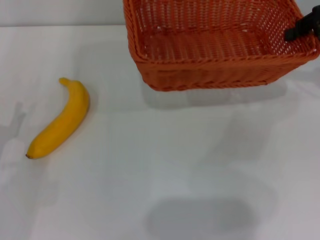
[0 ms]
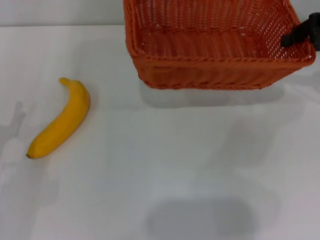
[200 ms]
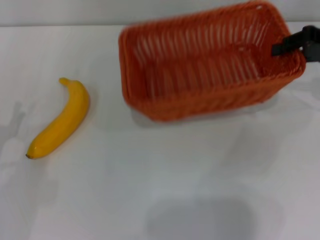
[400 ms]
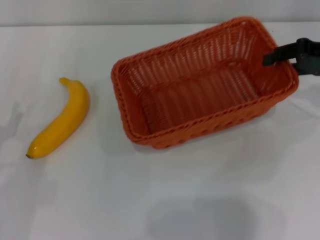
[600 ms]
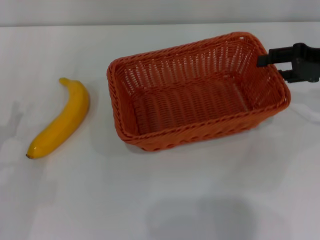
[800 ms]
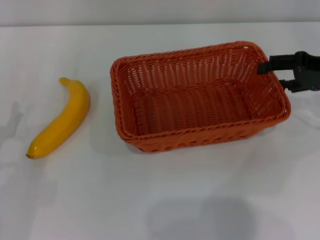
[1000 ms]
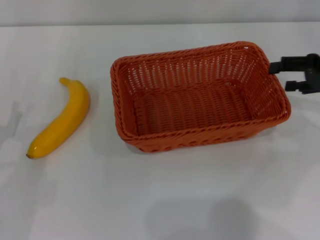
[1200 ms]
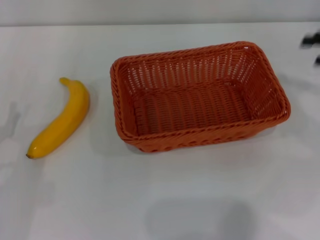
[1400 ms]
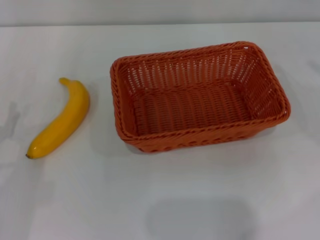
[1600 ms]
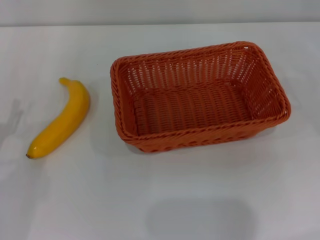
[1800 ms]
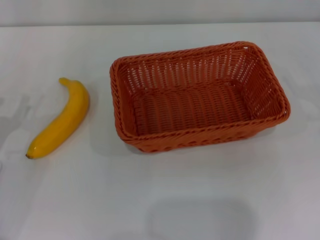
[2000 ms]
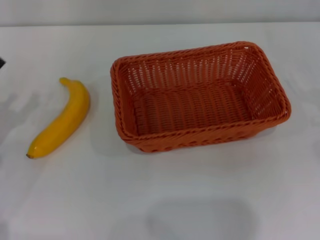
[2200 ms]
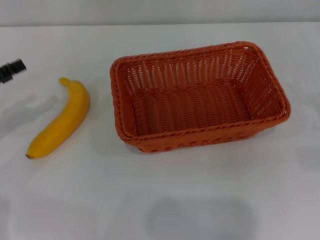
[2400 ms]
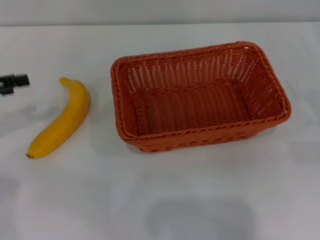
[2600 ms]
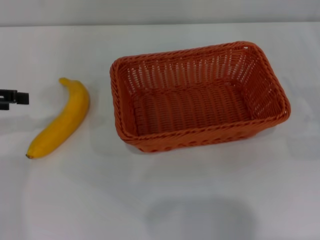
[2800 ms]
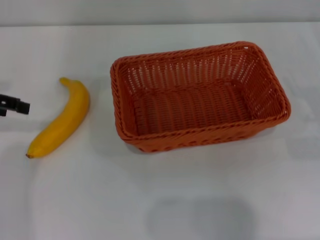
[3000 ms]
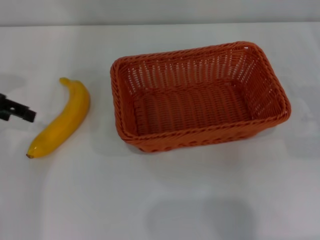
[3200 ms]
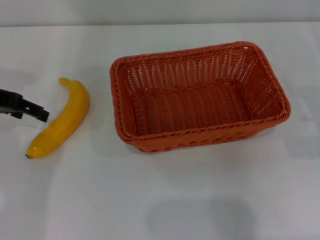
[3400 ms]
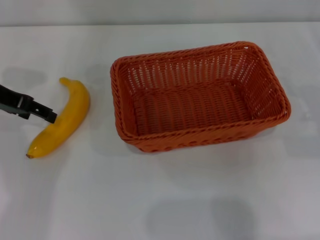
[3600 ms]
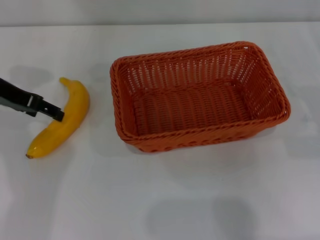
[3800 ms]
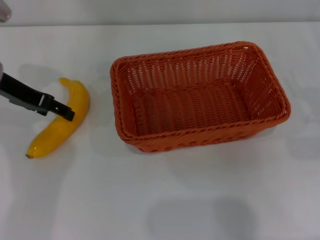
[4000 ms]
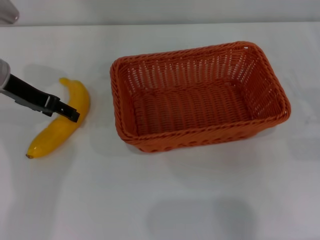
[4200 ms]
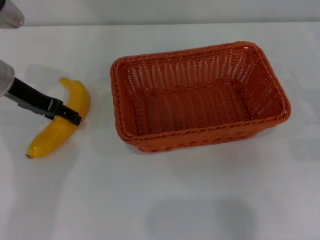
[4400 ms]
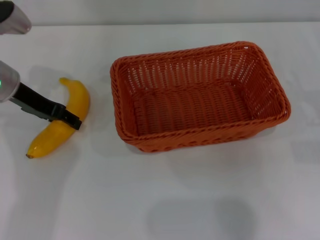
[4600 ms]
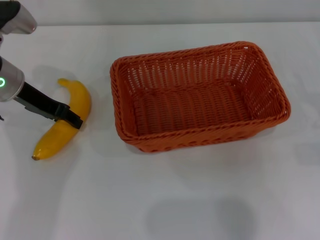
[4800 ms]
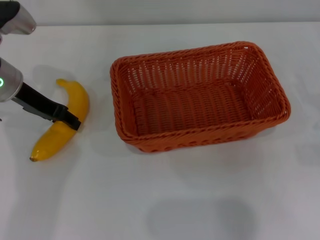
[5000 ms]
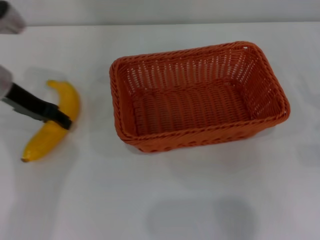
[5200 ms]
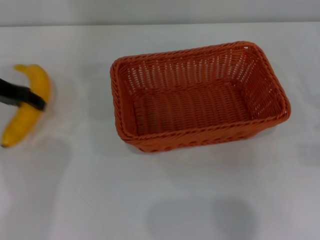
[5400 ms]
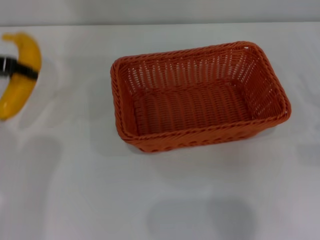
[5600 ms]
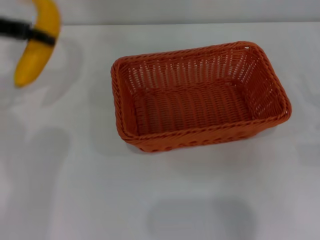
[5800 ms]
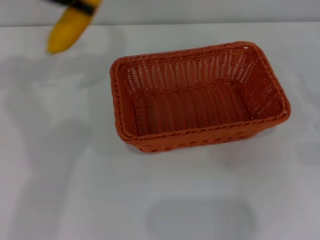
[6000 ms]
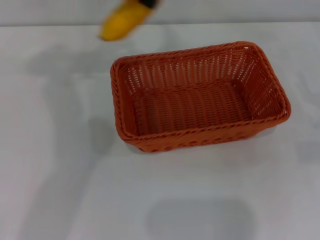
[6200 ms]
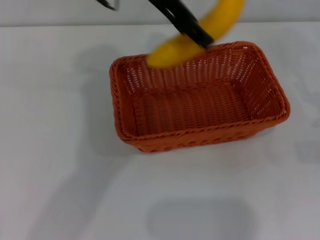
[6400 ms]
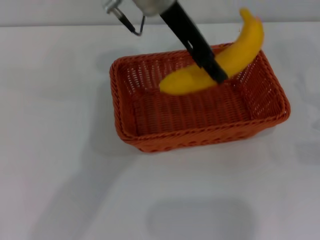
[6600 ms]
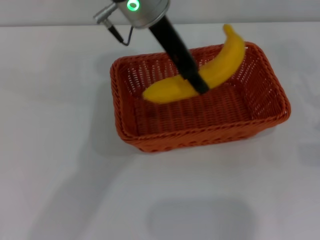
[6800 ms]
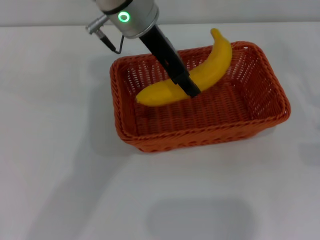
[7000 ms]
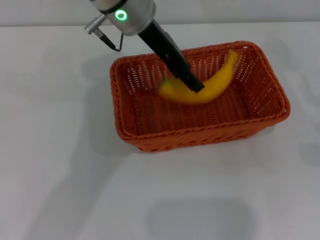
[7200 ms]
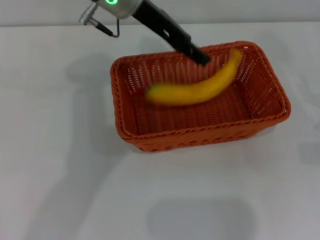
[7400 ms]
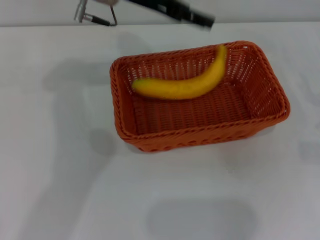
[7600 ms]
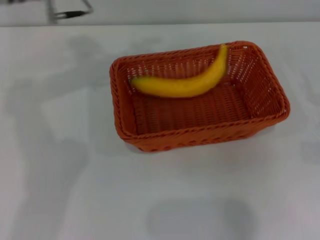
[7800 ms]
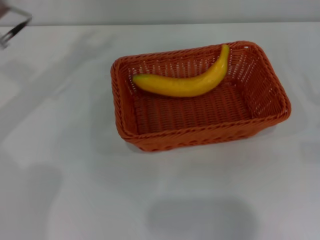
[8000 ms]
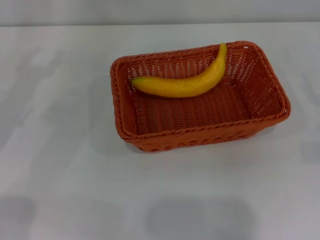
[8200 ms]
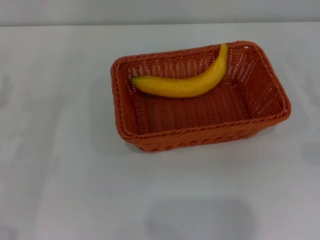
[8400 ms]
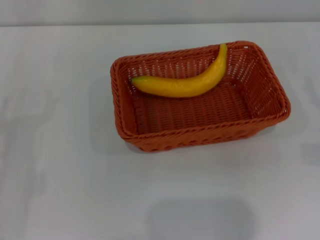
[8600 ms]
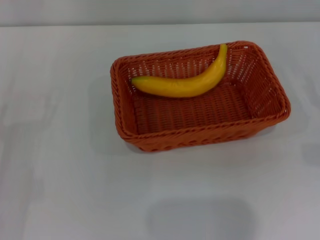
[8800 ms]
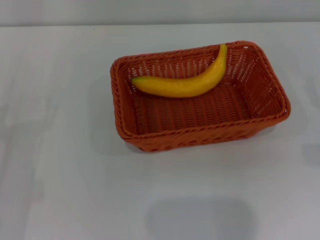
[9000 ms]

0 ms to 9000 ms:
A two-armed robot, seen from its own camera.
Step, 1200 ms to 5200 ms: Pick up the banana with the left gripper.
Step, 5400 ms to 7000 ms: Place the banana into the light basket with the left gripper.
0 ms to 1600 ms: The right gripper goes some 15 cm to the right, backward and downward, and opens its fingers.
1600 ms to 3000 ms: The left gripper heads upward and forward, covering about 20 cm.
3000 ms to 4400 ms: The left gripper heads to the right, covering roughly 10 cm.
4400 ms to 6000 ms: The left gripper moves upward, approximately 15 cm, and closes.
6000 ms to 7600 ms: The left gripper shifts about 15 cm to the right, and opens.
7600 ms to 9000 ms: The left gripper heads to the left, backward and downward, covering approximately 35 cm.

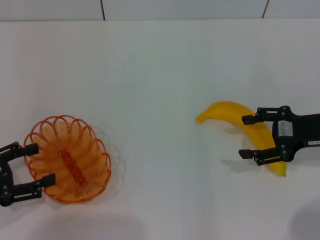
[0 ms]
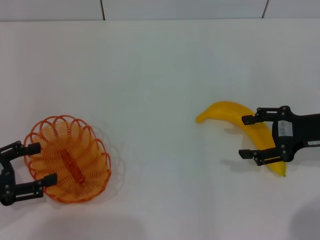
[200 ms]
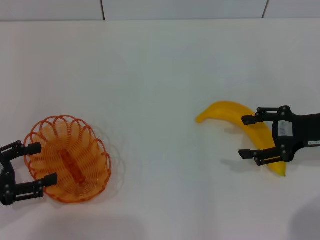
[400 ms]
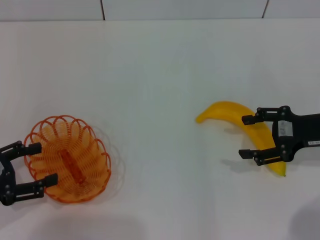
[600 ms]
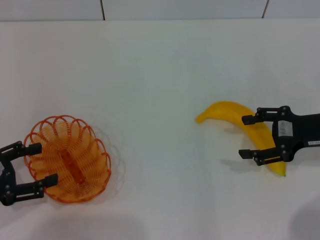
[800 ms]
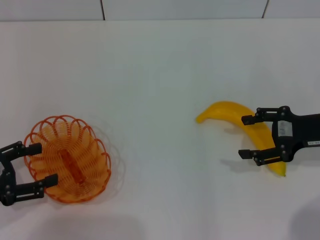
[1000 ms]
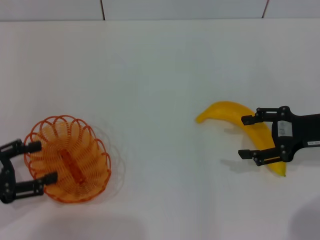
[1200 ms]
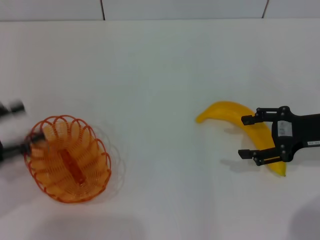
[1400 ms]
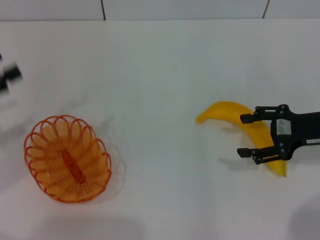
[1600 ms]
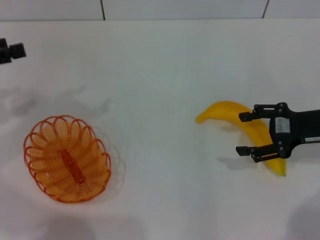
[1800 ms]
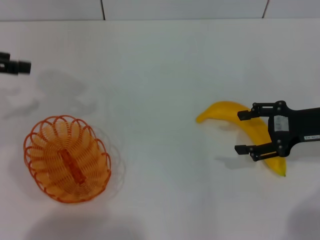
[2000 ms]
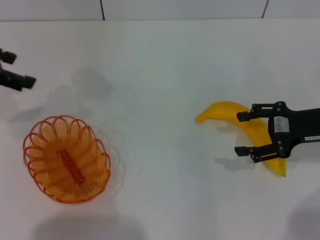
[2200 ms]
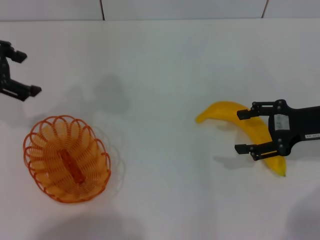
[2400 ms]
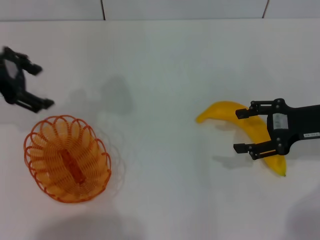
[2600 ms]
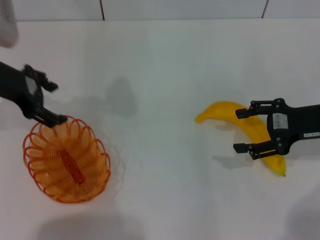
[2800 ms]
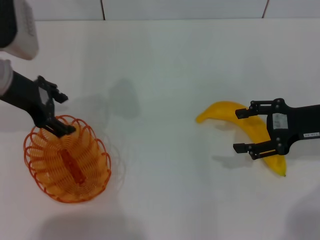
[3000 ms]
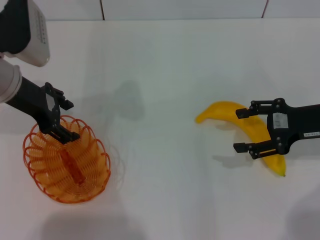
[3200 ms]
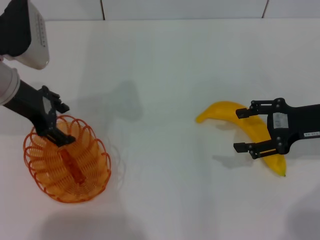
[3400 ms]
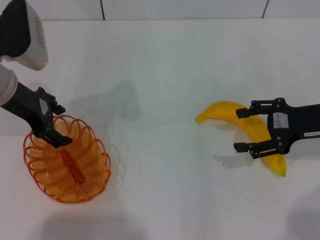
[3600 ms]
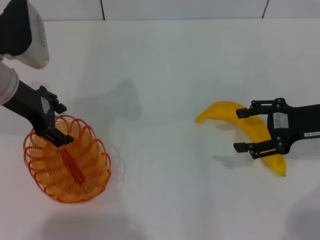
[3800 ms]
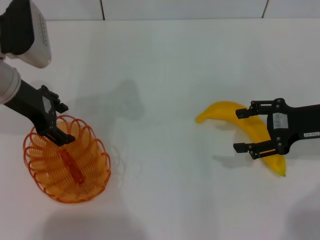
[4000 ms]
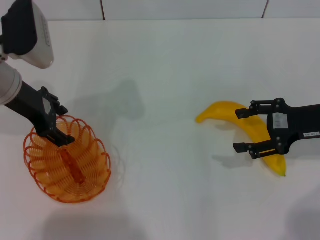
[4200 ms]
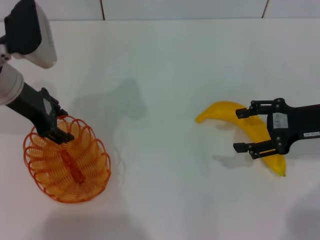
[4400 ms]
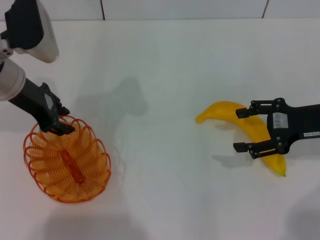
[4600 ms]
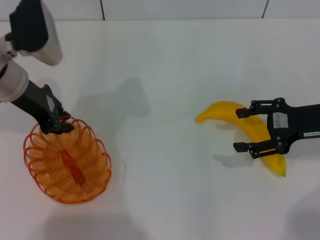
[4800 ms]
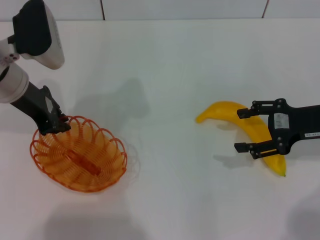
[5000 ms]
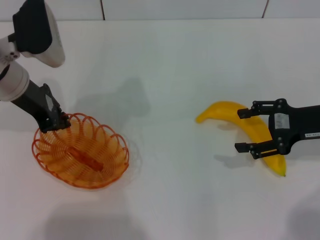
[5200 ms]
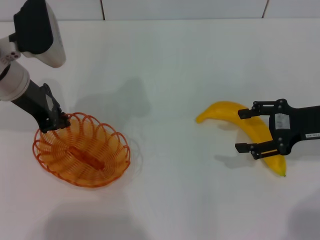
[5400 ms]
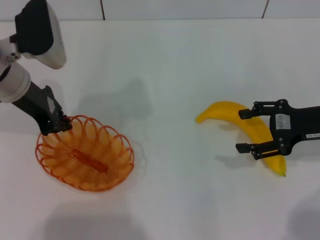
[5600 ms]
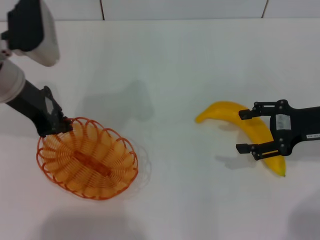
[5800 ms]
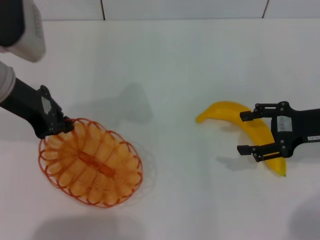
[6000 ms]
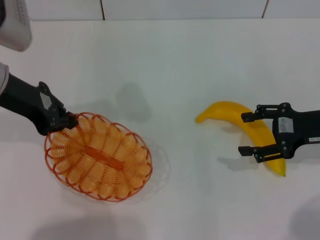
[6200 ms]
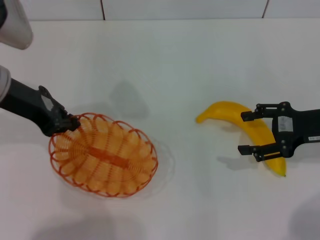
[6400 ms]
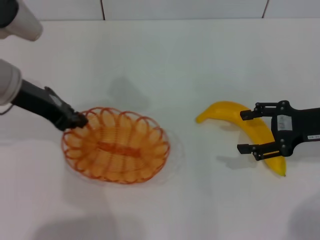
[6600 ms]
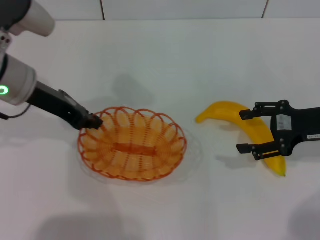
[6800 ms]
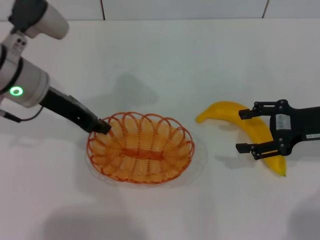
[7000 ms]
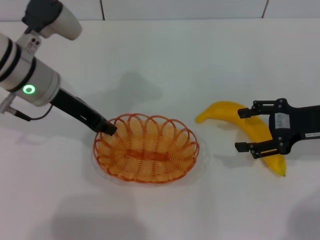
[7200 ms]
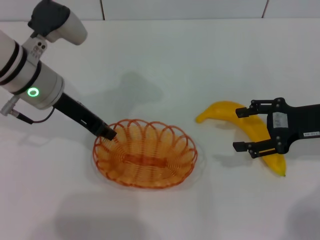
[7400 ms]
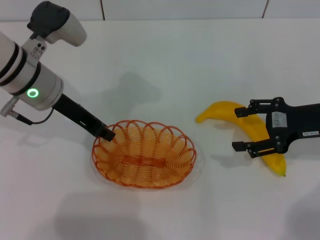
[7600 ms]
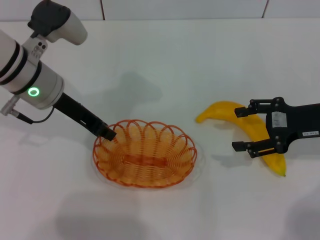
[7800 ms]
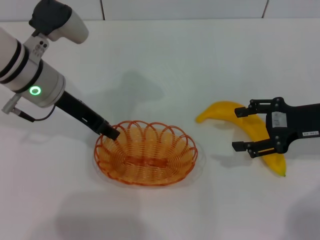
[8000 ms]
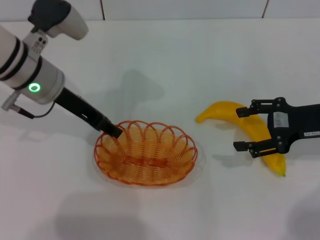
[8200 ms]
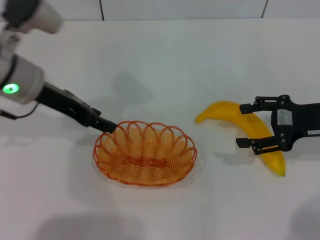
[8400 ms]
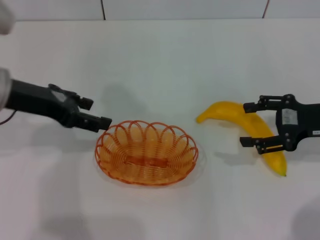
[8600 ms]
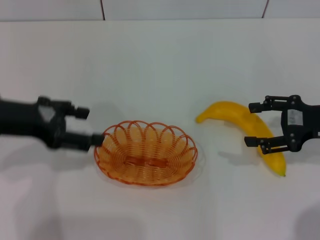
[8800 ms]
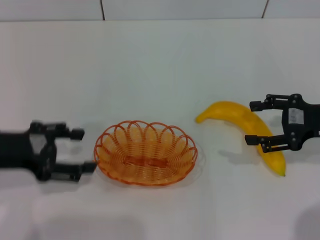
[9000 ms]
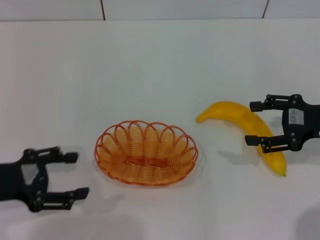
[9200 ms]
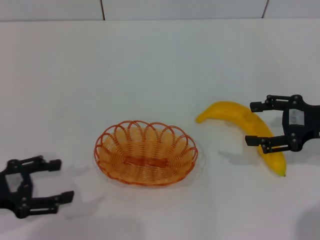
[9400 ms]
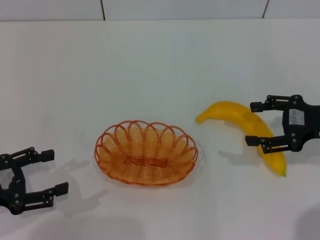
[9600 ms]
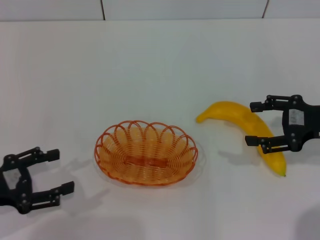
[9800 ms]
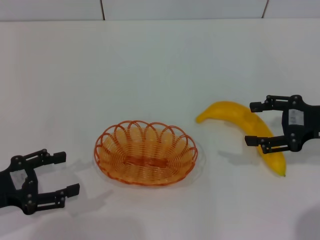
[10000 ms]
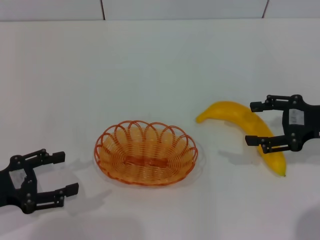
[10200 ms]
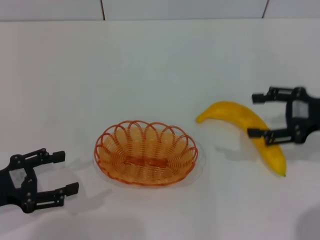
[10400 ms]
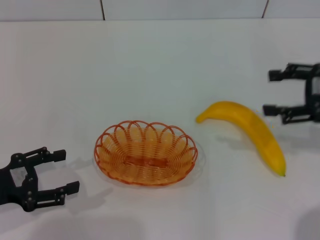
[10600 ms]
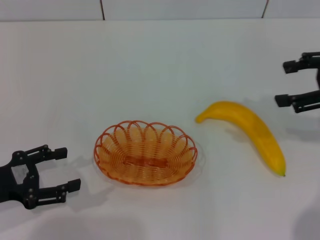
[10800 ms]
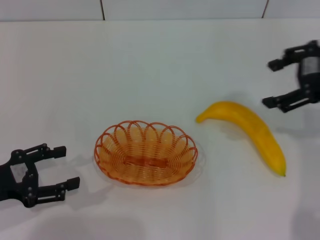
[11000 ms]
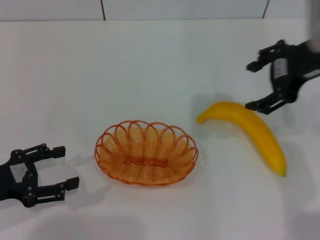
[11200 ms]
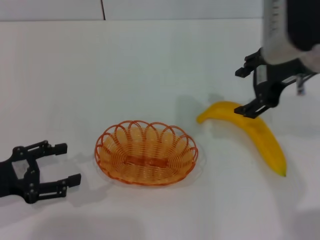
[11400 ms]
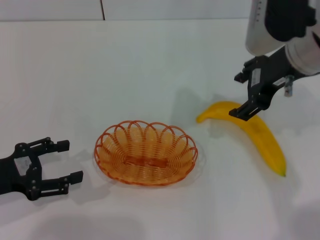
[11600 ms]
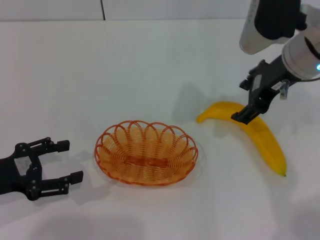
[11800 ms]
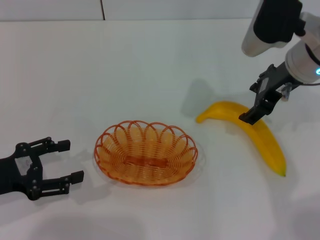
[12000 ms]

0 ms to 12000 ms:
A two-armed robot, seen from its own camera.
Step, 0 ms to 6200 ms: Pick up the basket with the left gripper.
Step, 6600 ms to 9800 ms: Place the basket in the center of view with the left gripper.
0 ms to 1600 ms: The left gripper moves upward and forward, roughly 10 cm.
1600 ms to 3000 ms: The left gripper moves to the right and forward, approximately 15 cm.
3000 ms to 4400 ms: The grippers stay close to where they were, moving slightly.
4400 ms to 6000 ms: The left gripper closes.
6000 ms to 7600 ms: The left gripper ends up some 5 cm from where it was.
7600 ms to 9000 ms: The left gripper is displaced backward and to the left by some 15 cm, and opens up.
9000 ms to 10400 ms: The left gripper is displaced downward by approximately 10 cm.
10400 ms to 12000 ms: The right gripper travels to the left, forward and upward by roughly 15 cm.

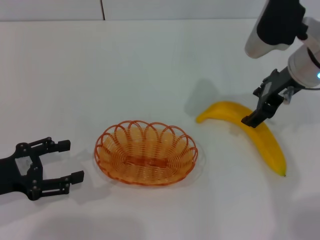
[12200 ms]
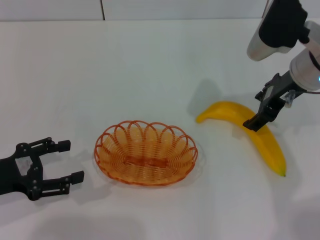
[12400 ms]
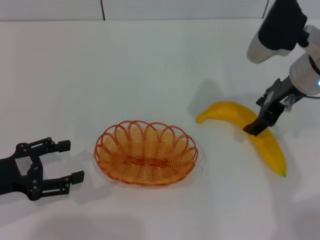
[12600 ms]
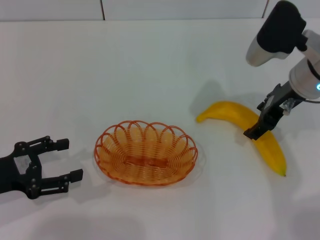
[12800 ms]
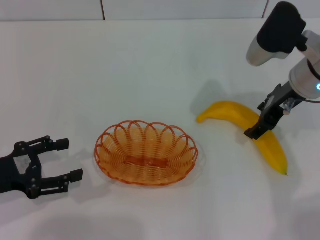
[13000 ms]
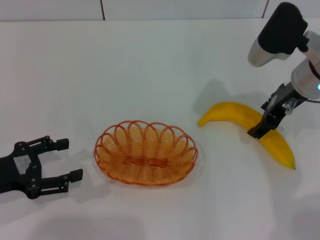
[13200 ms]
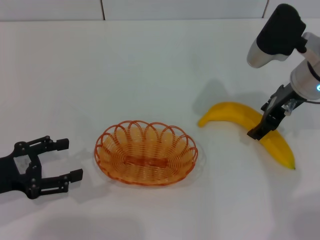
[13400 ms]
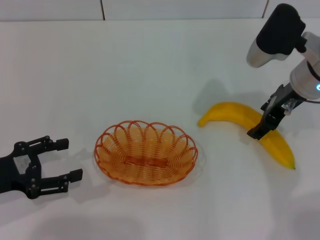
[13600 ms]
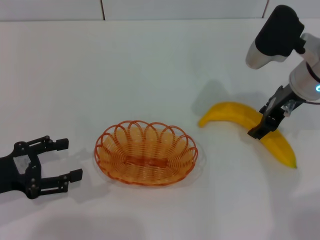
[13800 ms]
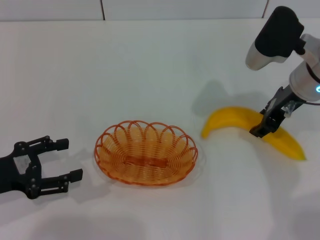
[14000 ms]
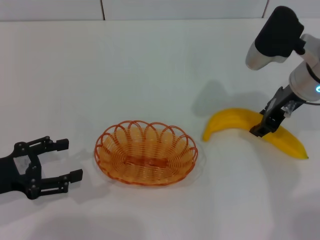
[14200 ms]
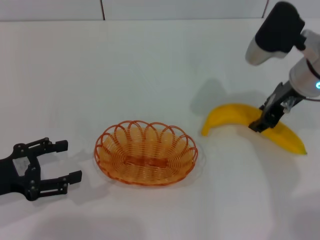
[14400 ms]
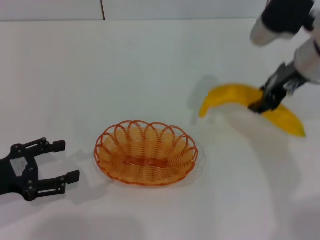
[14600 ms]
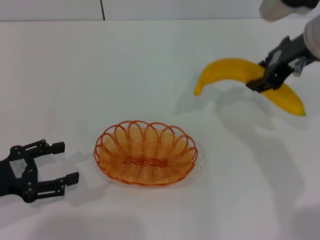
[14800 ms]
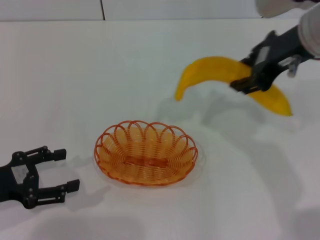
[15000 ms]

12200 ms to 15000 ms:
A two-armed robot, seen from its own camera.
Step, 12200 ms to 14800 ms: Pick up the banana with the right gripper.
12200 ms to 13600 ms: There are only small adjustments of the grippers.
13600 ms to 15000 ms: The right gripper moves upward, some 10 cm, and closes.
